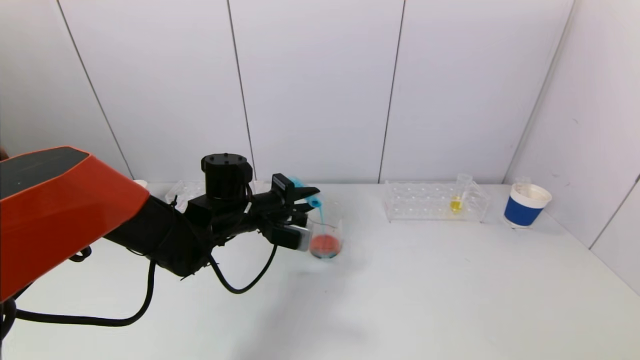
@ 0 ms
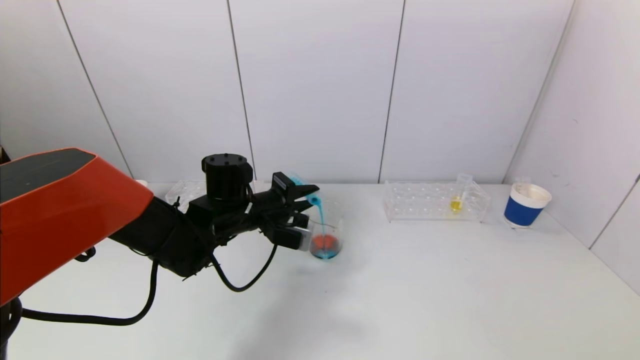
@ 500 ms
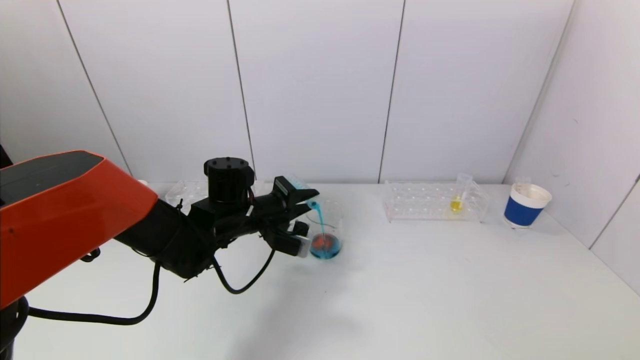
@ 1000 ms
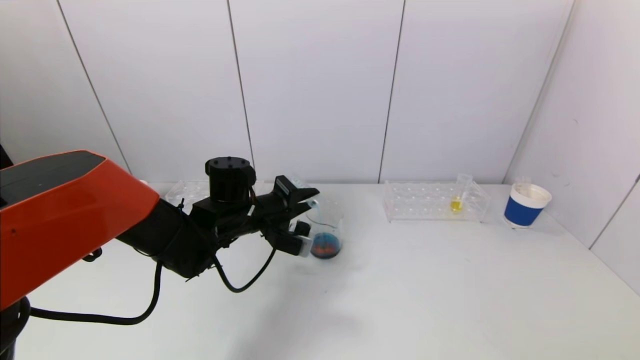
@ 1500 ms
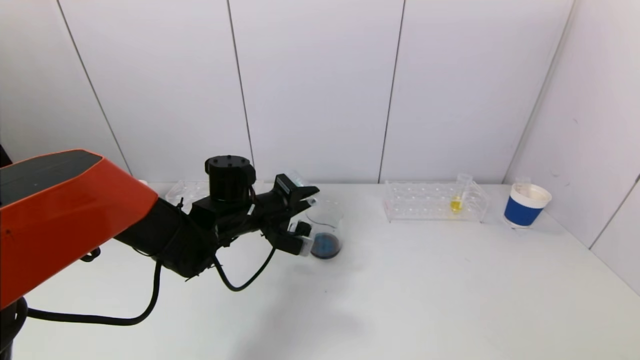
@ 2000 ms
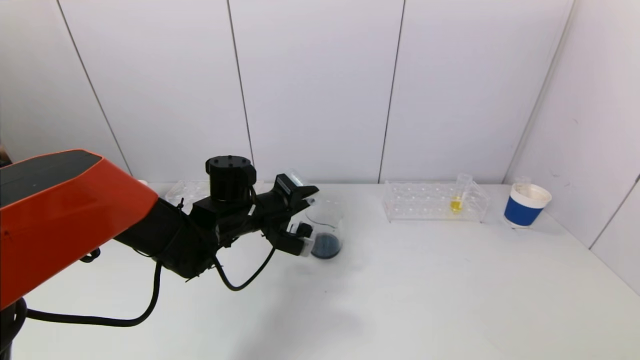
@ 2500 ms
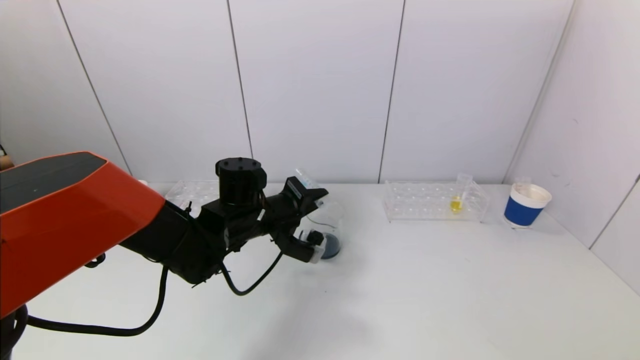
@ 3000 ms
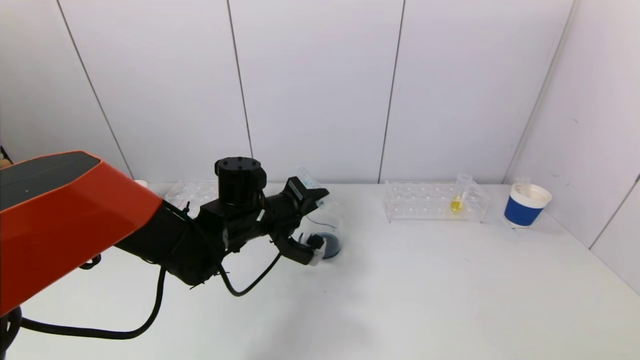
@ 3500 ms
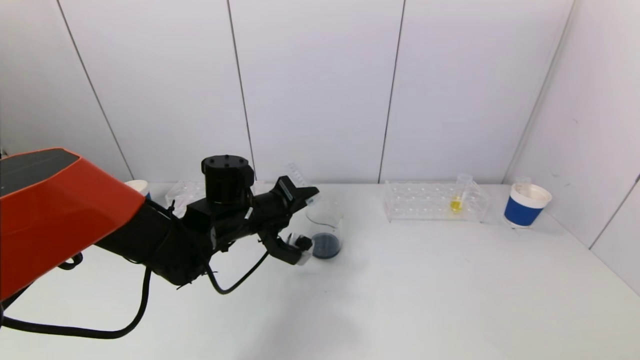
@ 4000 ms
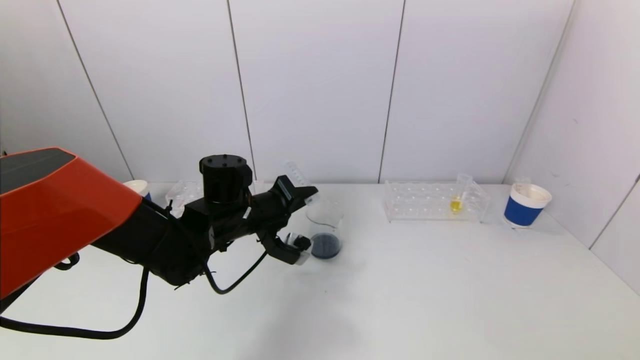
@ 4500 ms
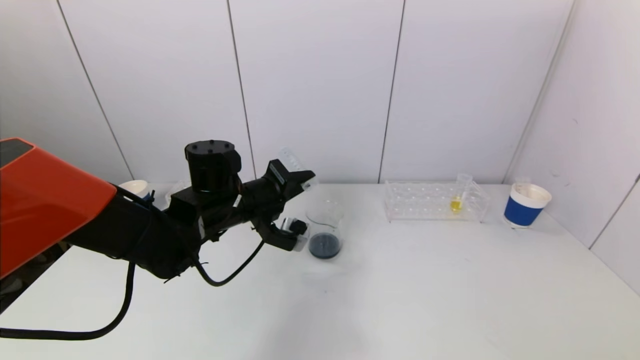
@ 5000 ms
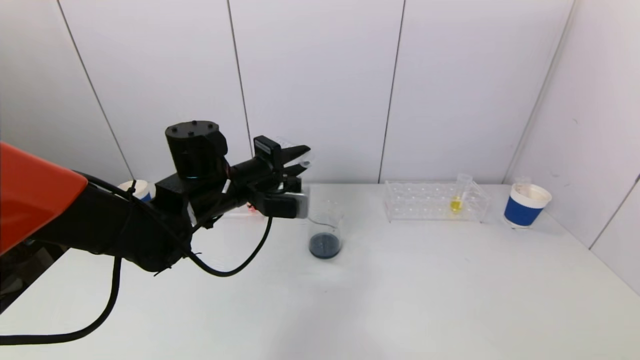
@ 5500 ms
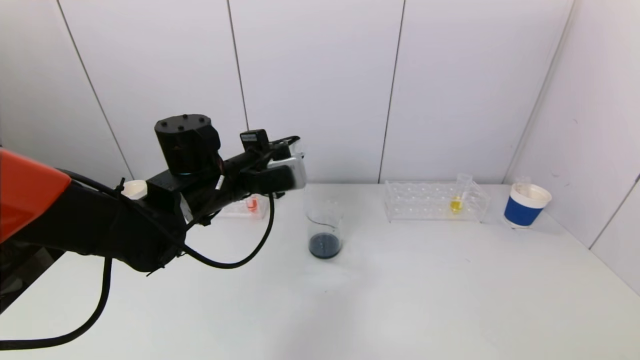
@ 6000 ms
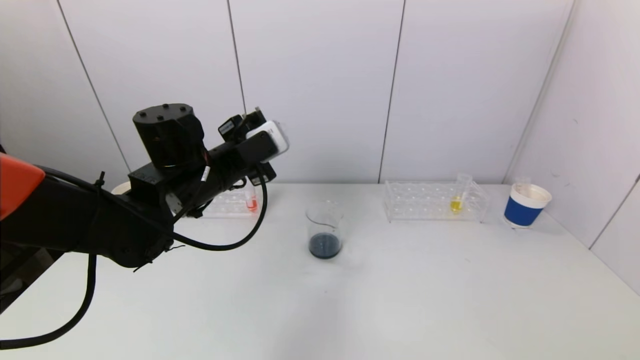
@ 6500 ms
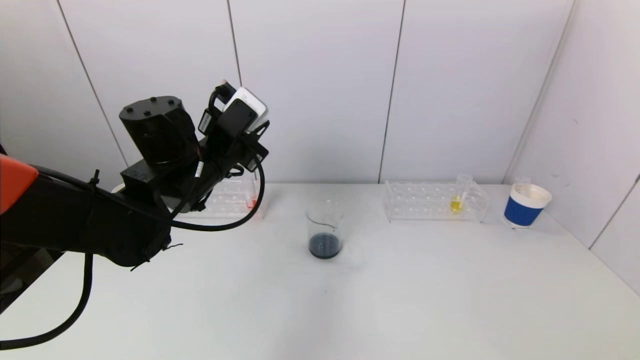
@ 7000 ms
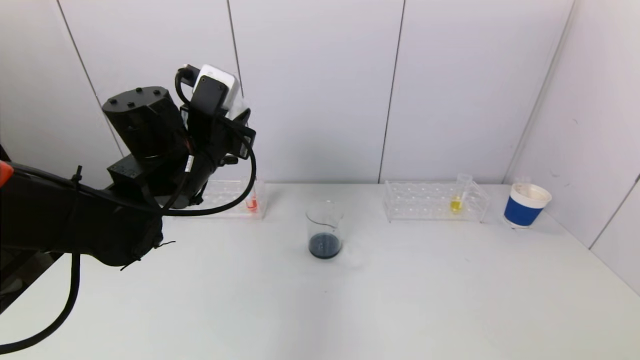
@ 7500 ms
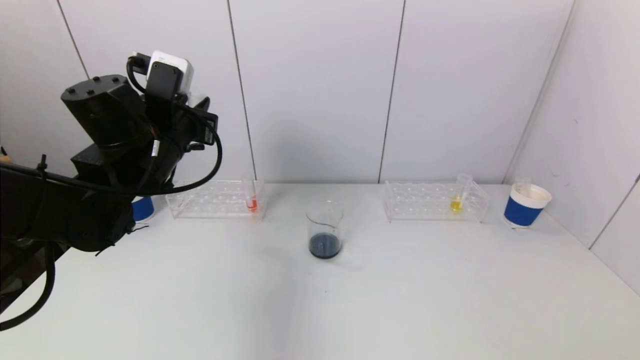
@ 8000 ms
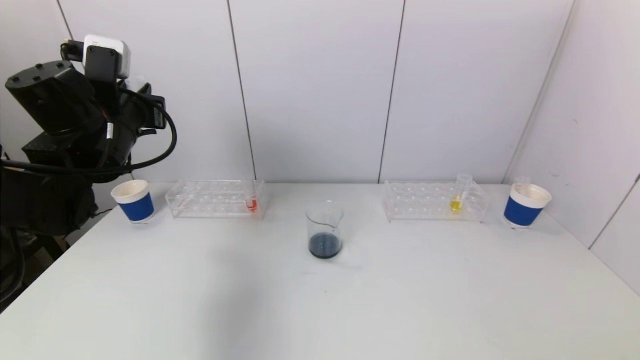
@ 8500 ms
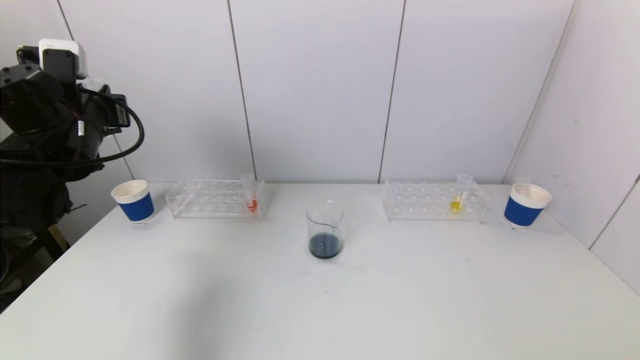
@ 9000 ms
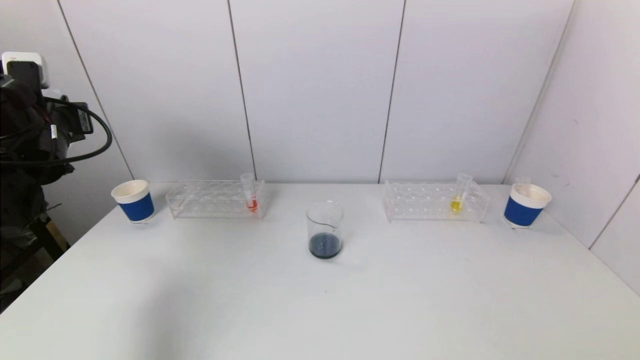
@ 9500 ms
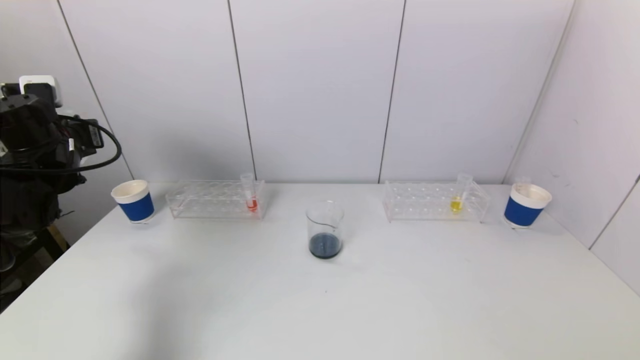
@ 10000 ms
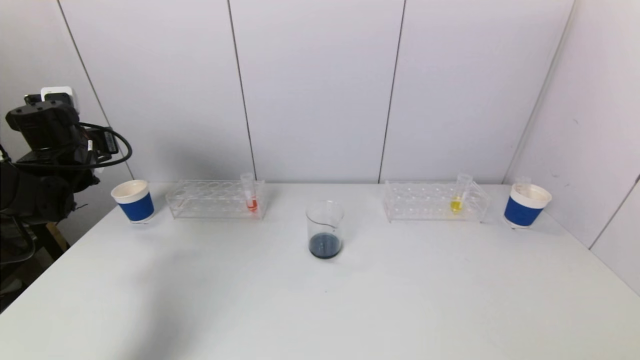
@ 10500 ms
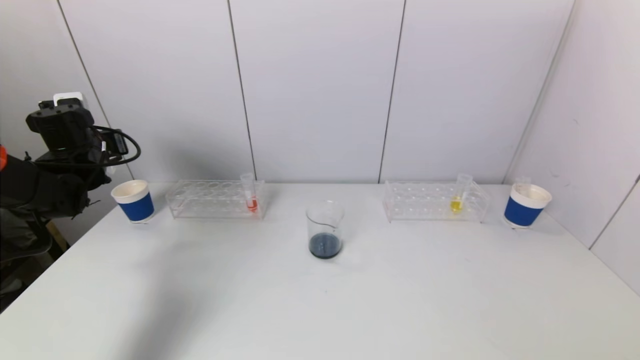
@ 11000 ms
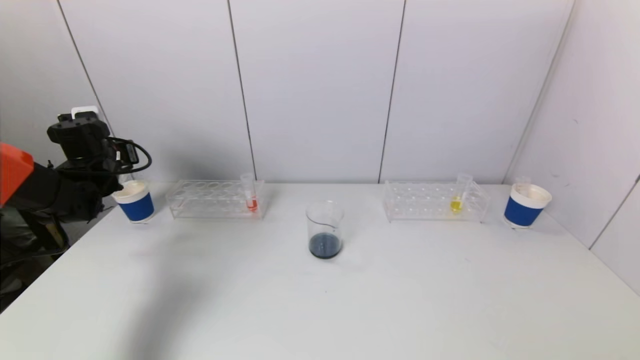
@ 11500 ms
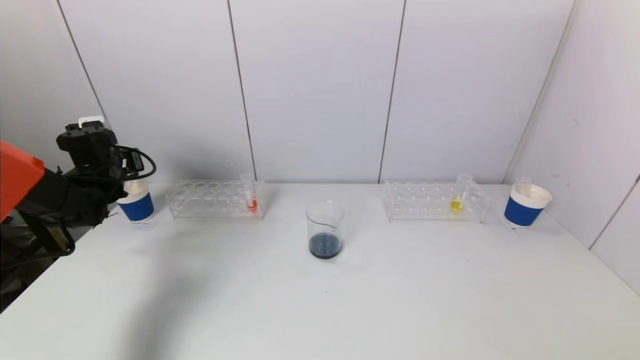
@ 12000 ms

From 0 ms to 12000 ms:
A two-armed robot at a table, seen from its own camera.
Task of the whole recording: pick up a test tube with pigment on left test tube rack and a test tube with pigment on right test tube rack by grippers and pour them into the beaker.
Step, from 0 ms to 5000 ms: Pour the blue reagent into the graduated cylinder with the left gripper.
From 0 ms to 2000 ms: The grippers make only small movements.
From 2000 ms to 4000 ms: There are only small adjustments of the grippers.
From 4000 ms to 6000 ms: The left gripper moves upward, roughly 5 cm.
From 6000 ms to 8000 ms: The left gripper heads to the left and upward, covering approximately 10 cm.
From 8000 ms to 10000 ms: The left gripper heads to the left, covering about 15 cm.
From 10000 ms to 12000 ms: The left gripper shifts some 10 cm downward and forward.

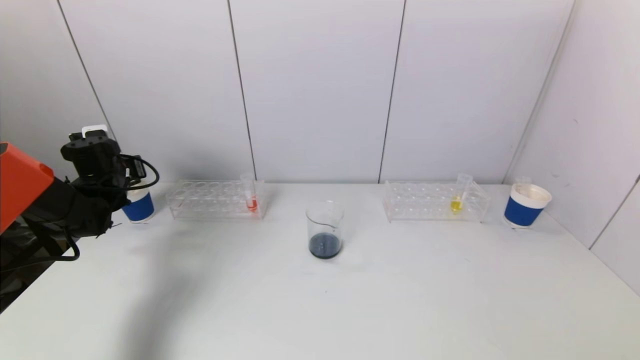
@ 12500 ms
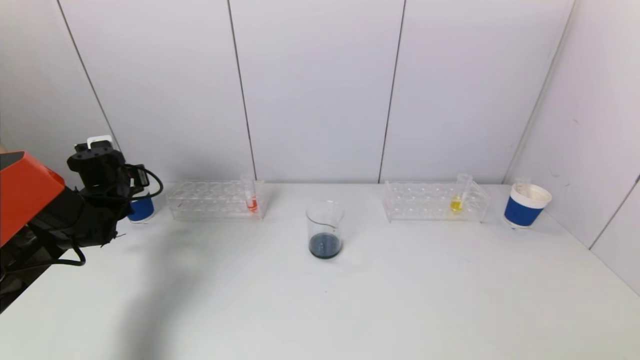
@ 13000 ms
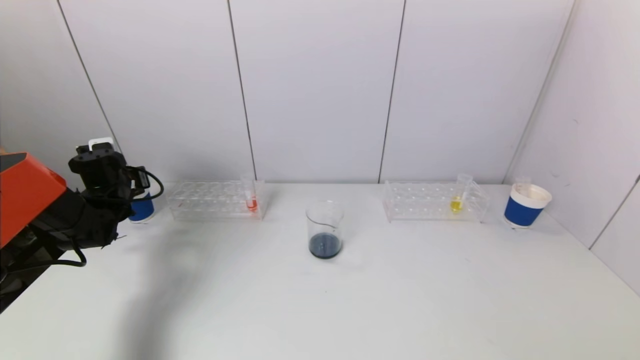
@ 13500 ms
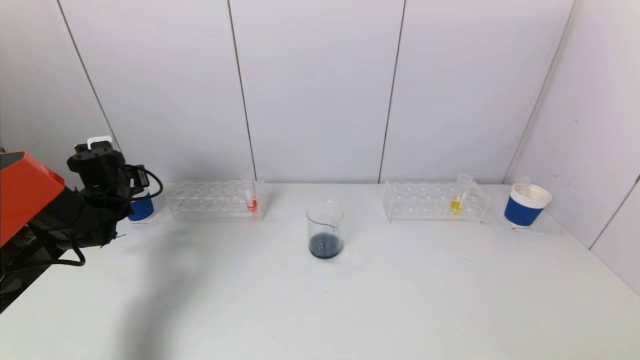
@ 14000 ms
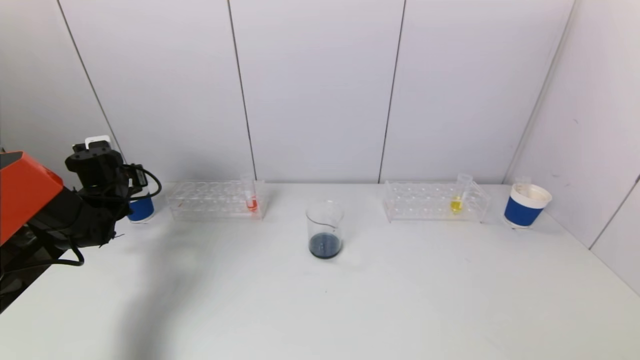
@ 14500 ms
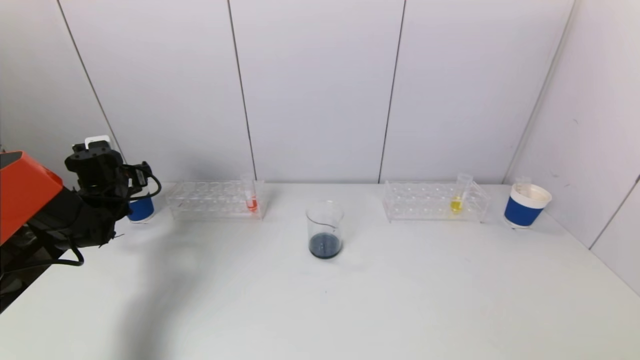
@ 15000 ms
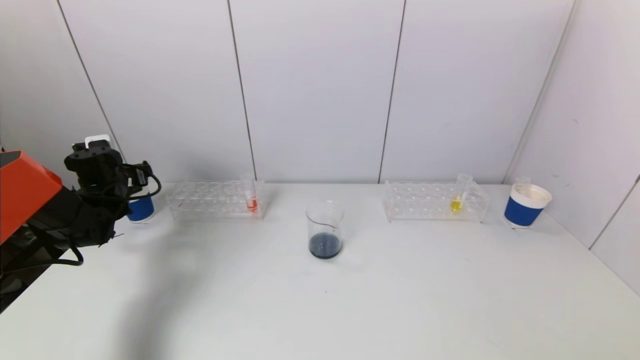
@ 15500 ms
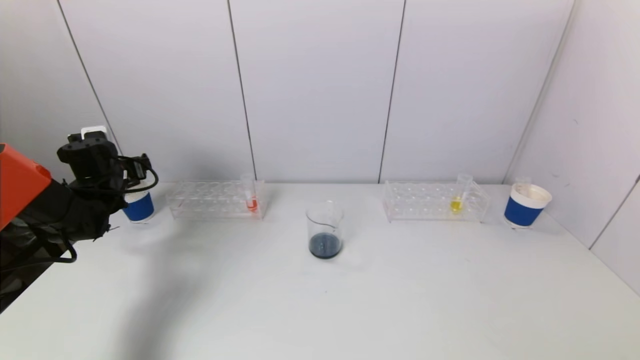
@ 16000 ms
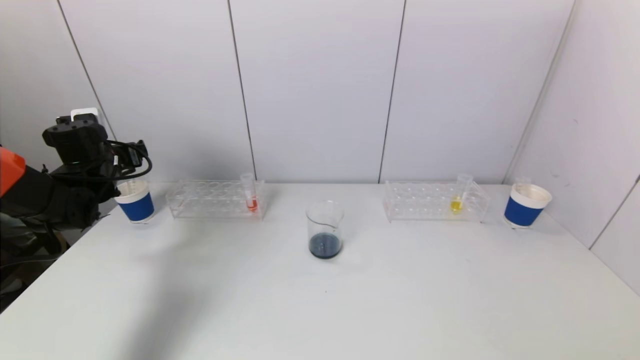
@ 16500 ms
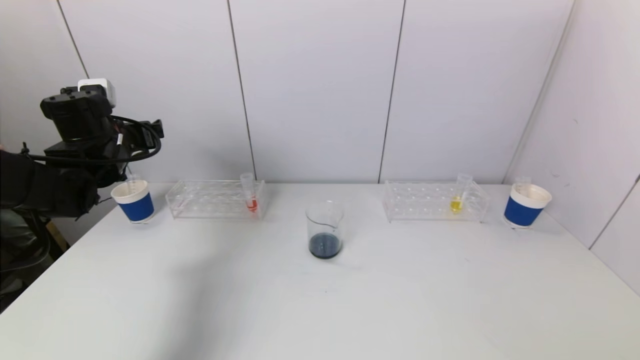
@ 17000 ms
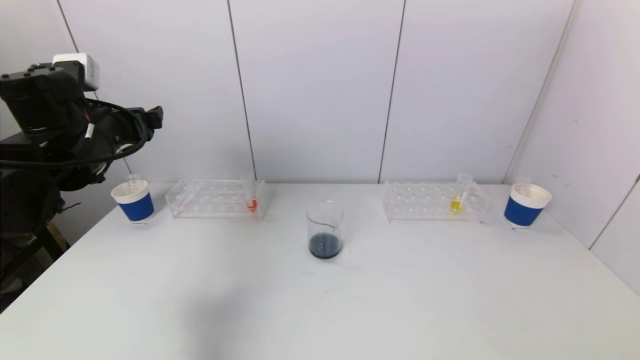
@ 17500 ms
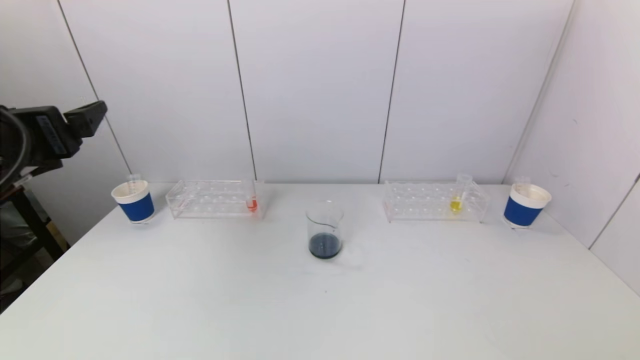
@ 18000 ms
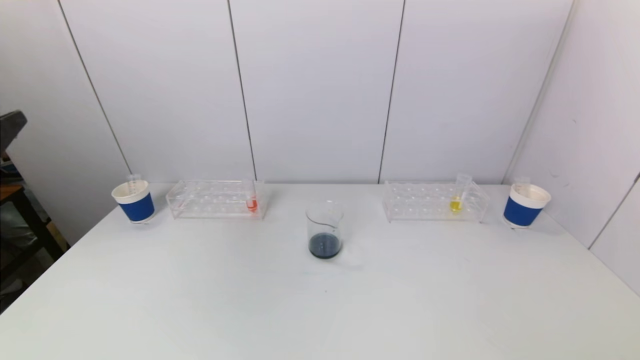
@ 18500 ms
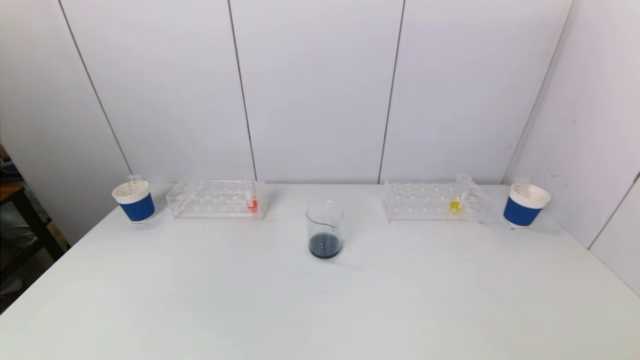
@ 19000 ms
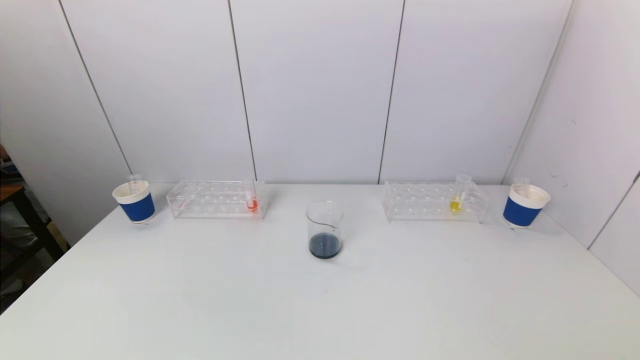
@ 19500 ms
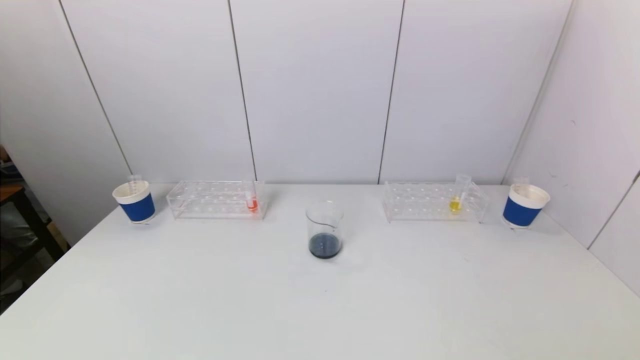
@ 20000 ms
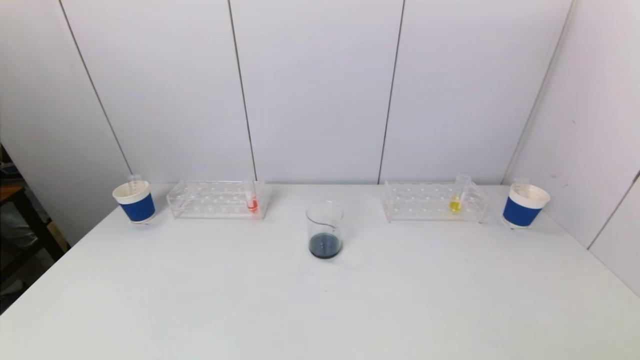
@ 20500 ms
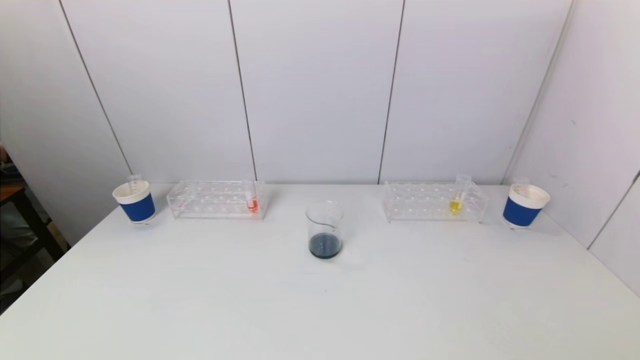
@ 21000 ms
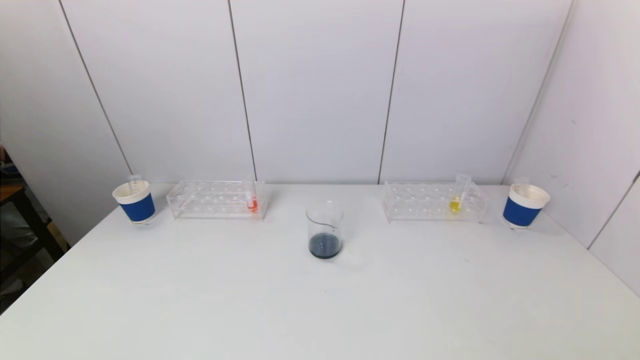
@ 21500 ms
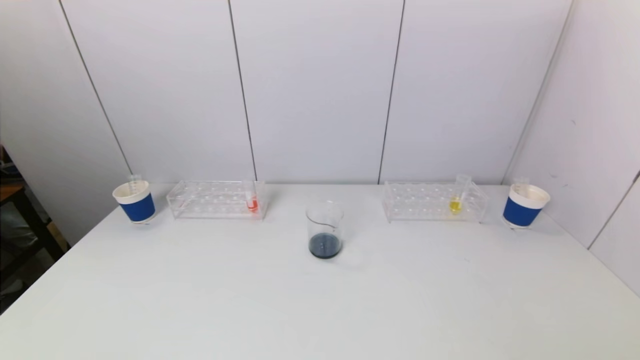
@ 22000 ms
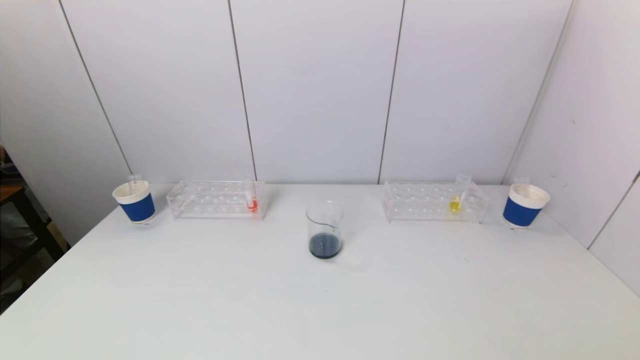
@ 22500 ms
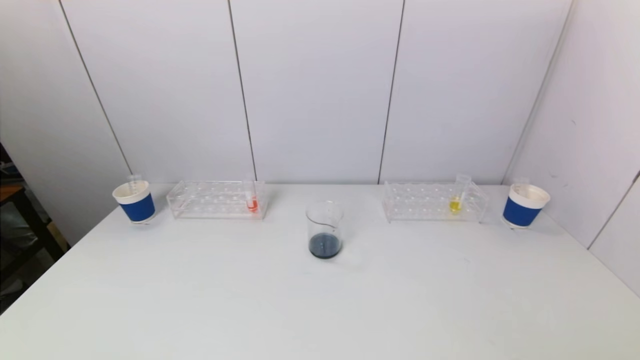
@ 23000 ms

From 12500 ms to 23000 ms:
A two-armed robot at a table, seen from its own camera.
Task of the whole recording: pick up a test tube with pigment on left test tube rack and a test tube with pigment on right test tube rack by grippers and pour them into the beaker.
Step, from 12500 ms to 15500 ms: Place the test tube into the paper cup with the left gripper.
From 12500 ms to 14500 ms: The left gripper opens up.
From 14500 ms to 16500 ms: The left gripper is displaced upward by roughly 5 cm, and opens its fingers.
From 16500 ms to 19000 ms: The left gripper goes roughly 40 cm backward.
